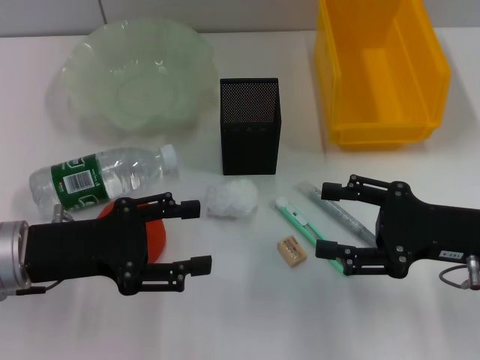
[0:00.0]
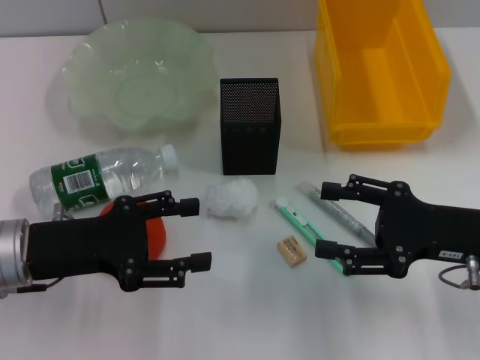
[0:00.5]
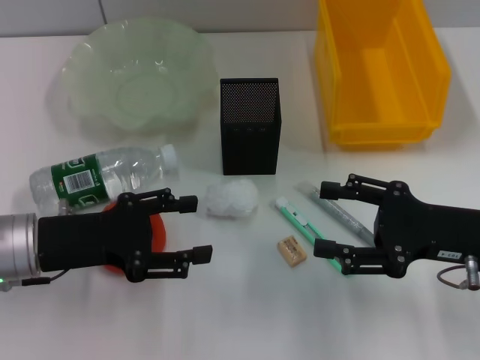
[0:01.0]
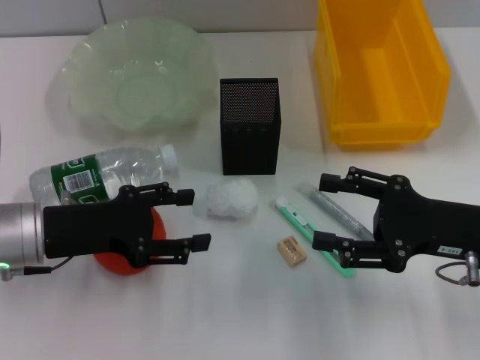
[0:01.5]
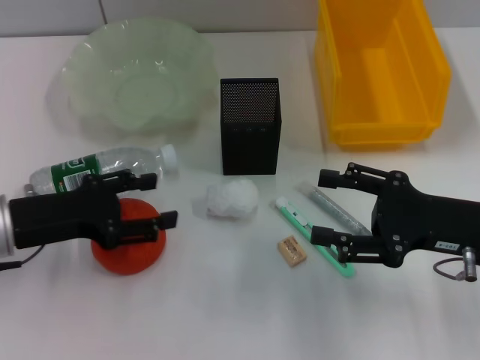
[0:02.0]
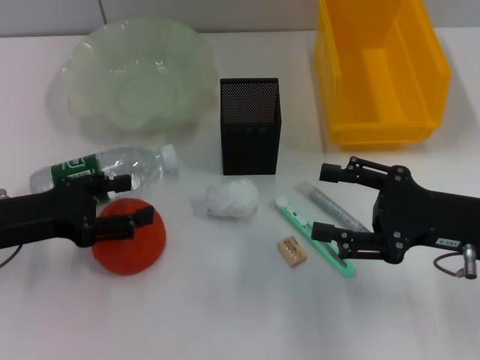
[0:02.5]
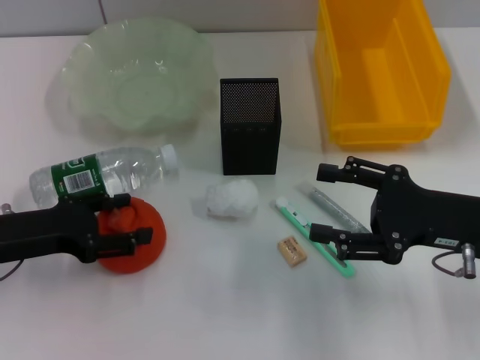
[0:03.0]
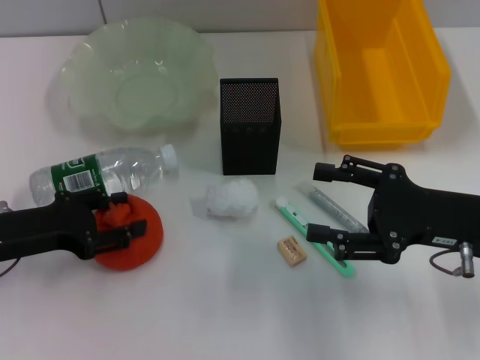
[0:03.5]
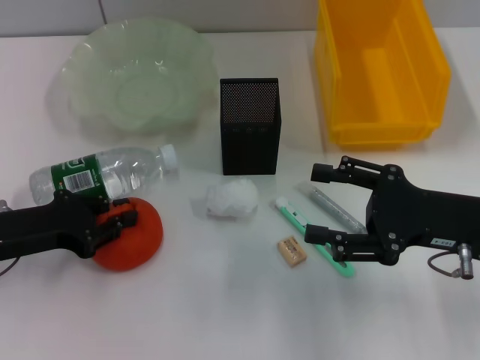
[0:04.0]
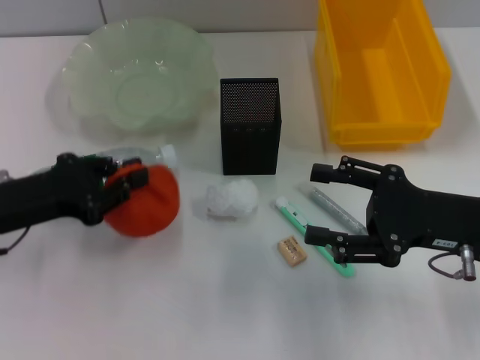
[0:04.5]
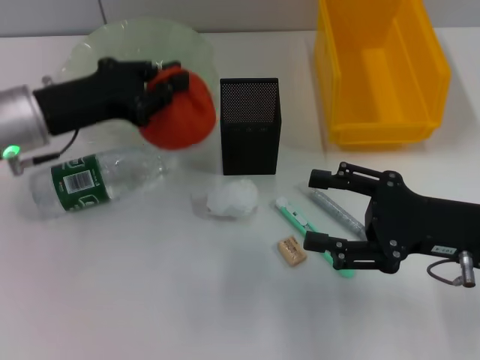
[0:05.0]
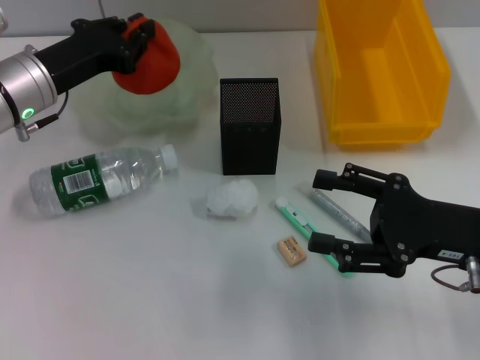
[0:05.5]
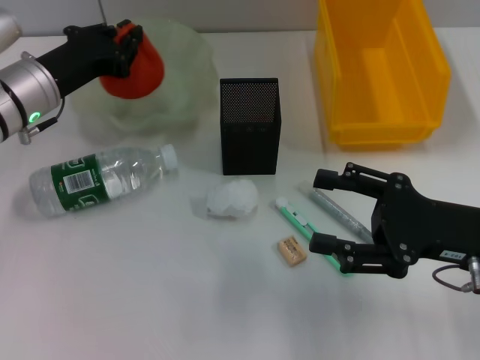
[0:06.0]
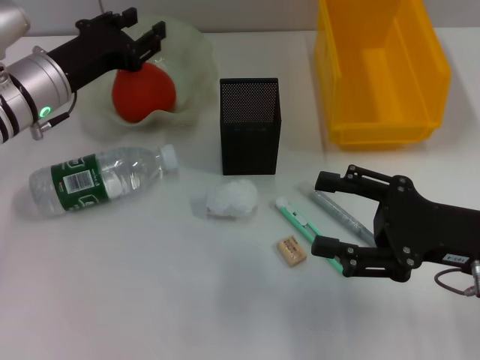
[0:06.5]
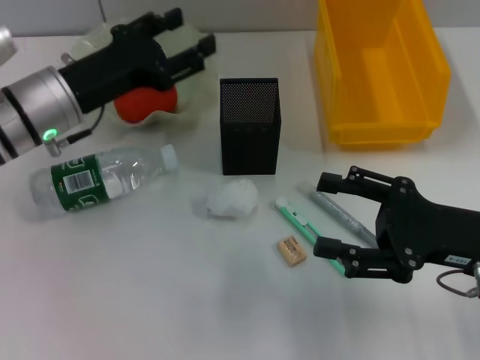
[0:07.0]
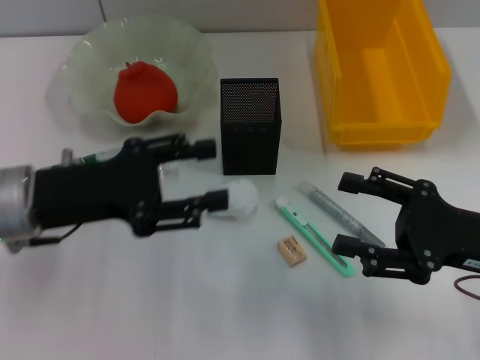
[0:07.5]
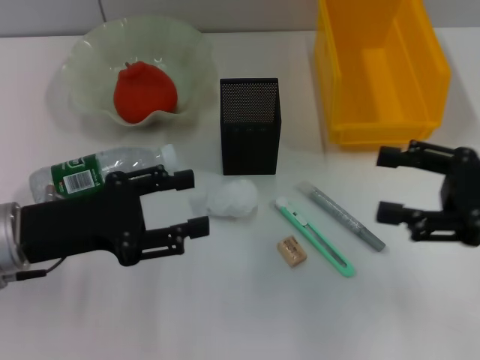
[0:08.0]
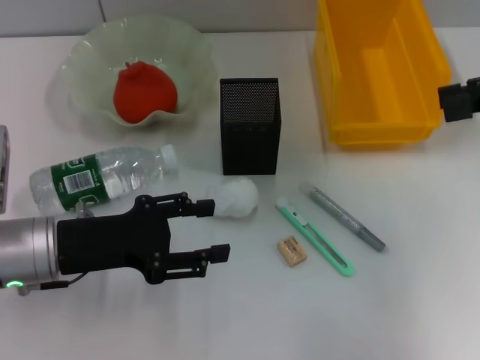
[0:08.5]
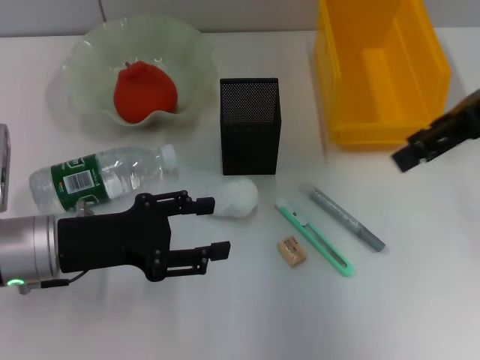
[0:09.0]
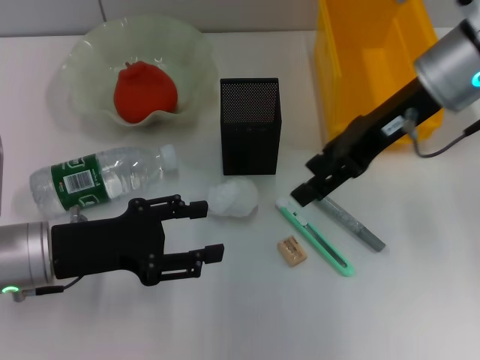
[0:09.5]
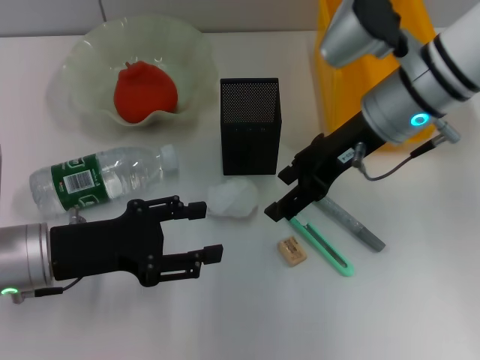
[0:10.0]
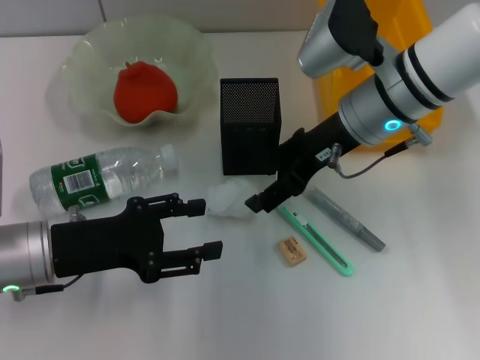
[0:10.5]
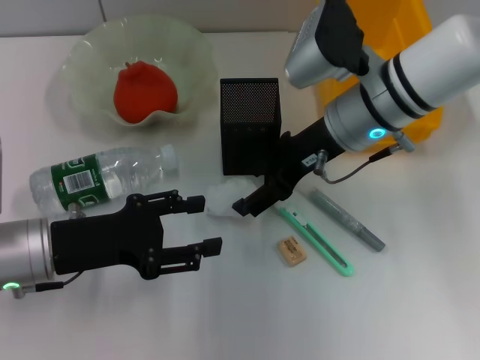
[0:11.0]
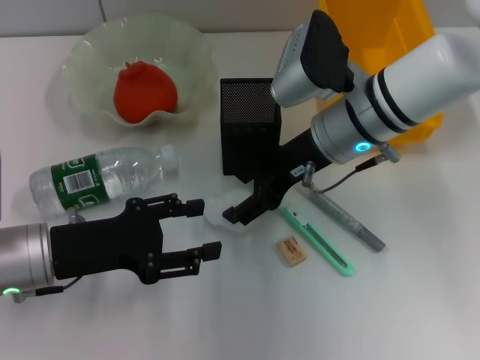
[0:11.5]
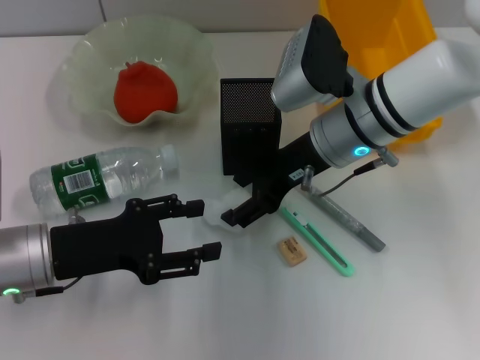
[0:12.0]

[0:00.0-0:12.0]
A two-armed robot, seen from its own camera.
Step, 0:00.0 to 0:04.0: Grab the orange with the left hand.
Step, 0:04.5 to 0:06.5: Place the orange into the fruit bowl with the left hand.
0:00.0 to 0:02.0: The grippers stay close to where they were, moving slightly.
0:02.0 to 0:04.0: The left gripper closes its fingers.
0:04.0 to 0:06.0: The left gripper shifts approximately 15 cm forward and to the right.
0:06.0 to 0:08.0: The right gripper moves to the right, roughly 5 cm; the left gripper heads backward, covering roughly 15 cm, and opens up.
0:08.0 to 0:10.0: The right gripper goes some 20 cm to the left and forward.
0:10.0 to 0:12.0: The right gripper ends up approximately 5 cm from where it was.

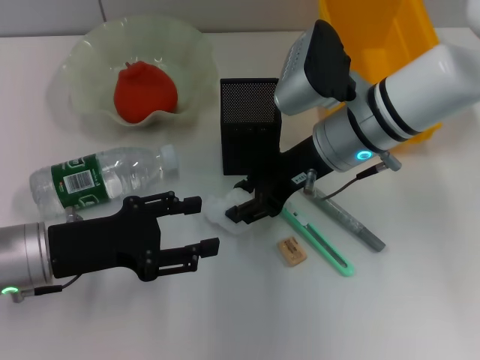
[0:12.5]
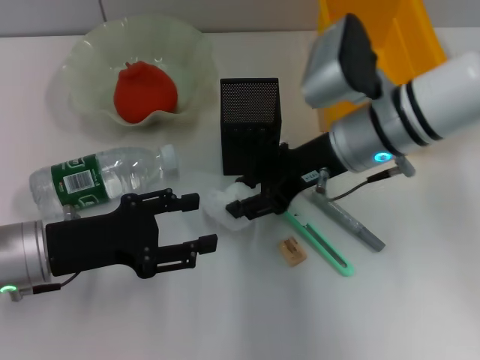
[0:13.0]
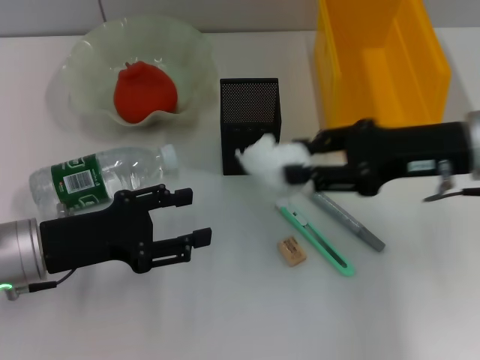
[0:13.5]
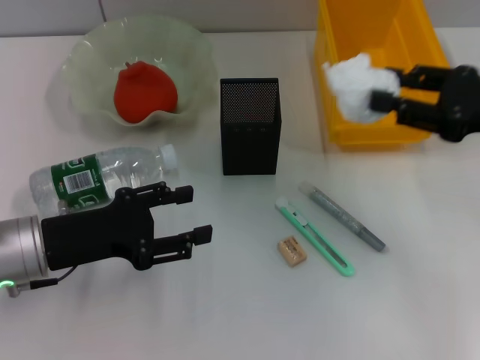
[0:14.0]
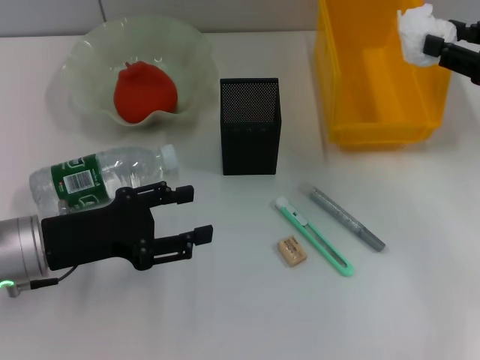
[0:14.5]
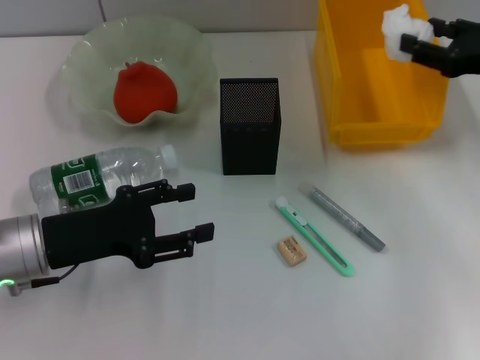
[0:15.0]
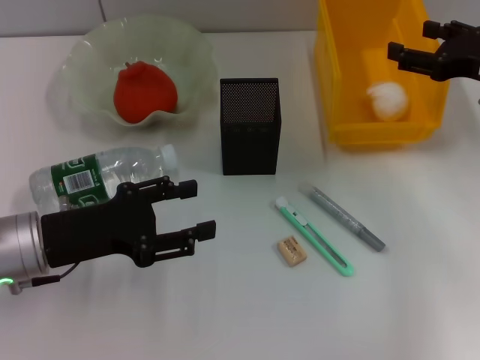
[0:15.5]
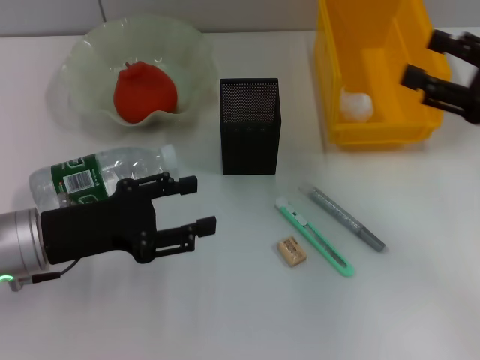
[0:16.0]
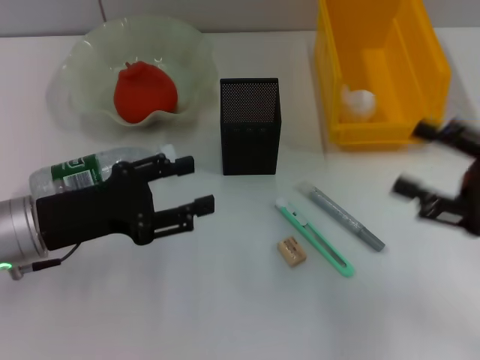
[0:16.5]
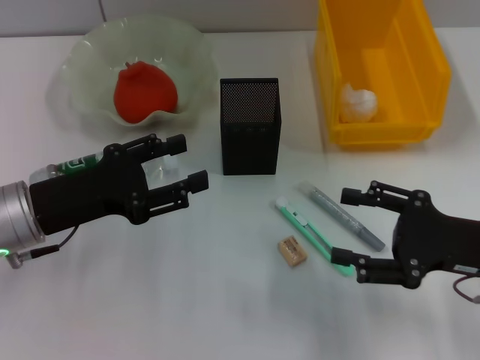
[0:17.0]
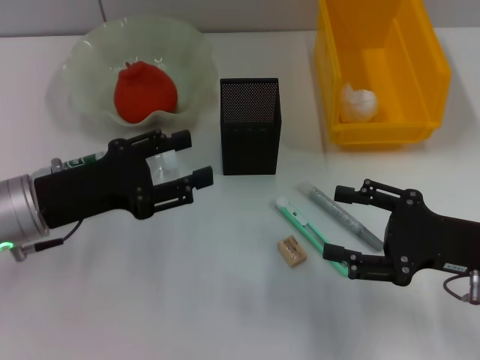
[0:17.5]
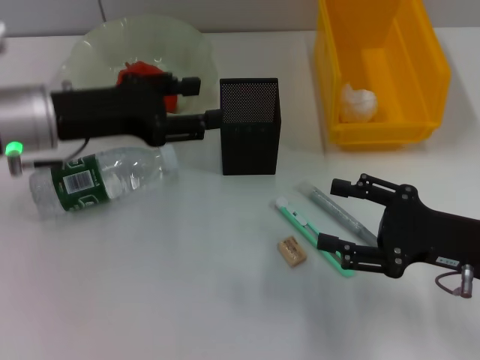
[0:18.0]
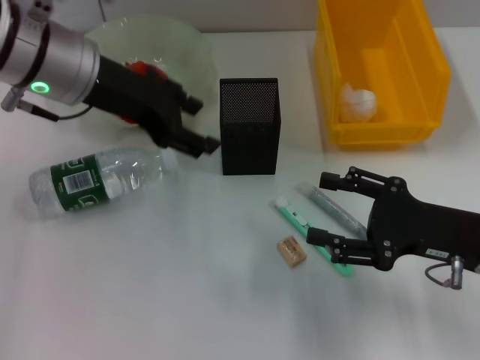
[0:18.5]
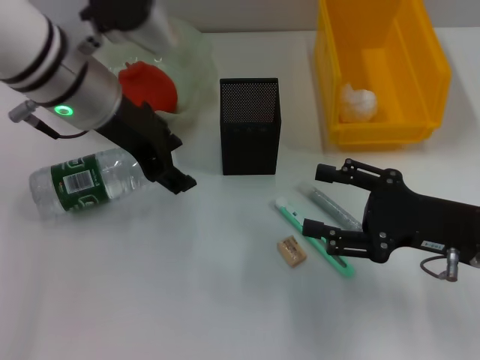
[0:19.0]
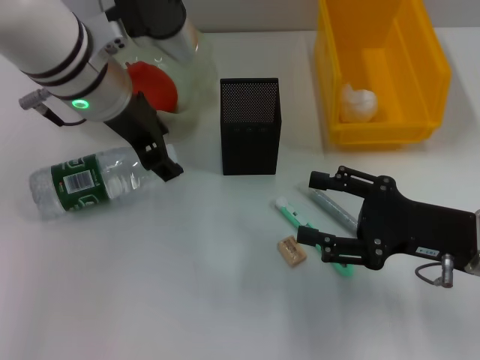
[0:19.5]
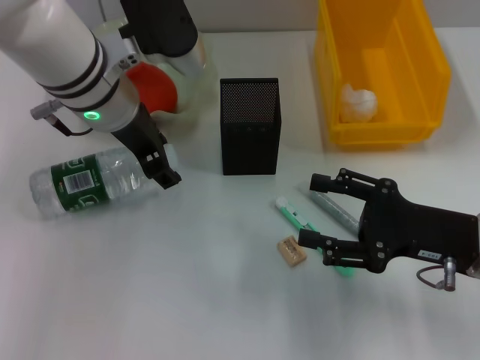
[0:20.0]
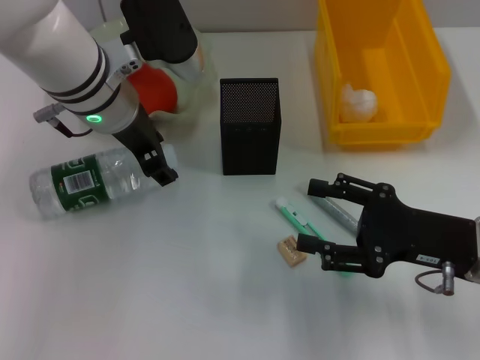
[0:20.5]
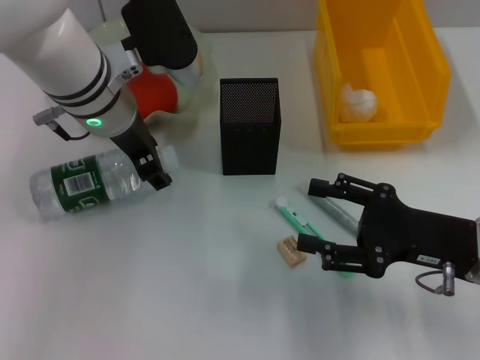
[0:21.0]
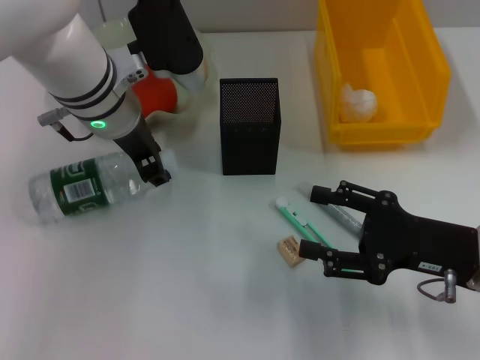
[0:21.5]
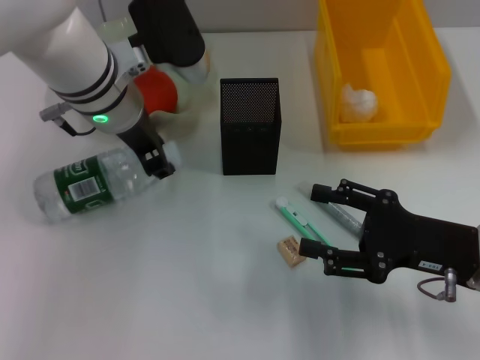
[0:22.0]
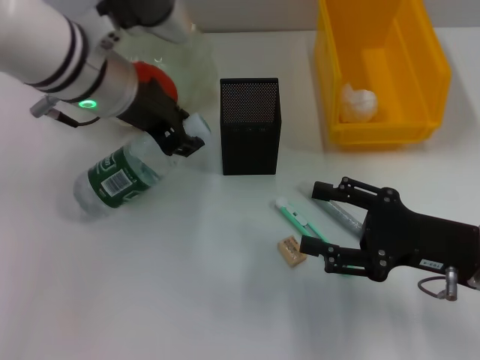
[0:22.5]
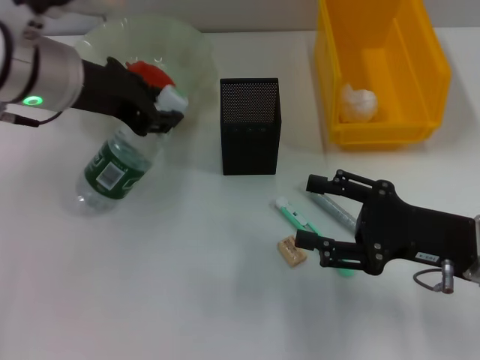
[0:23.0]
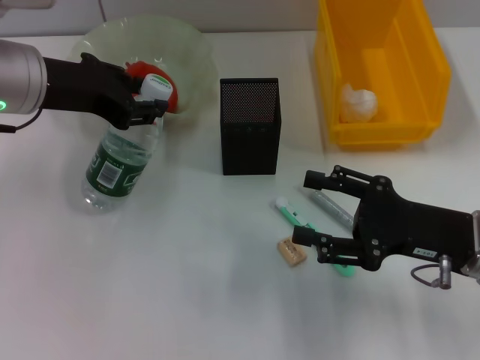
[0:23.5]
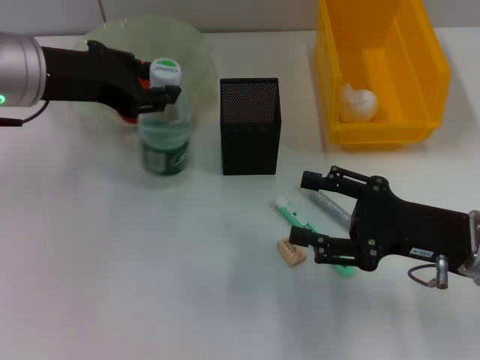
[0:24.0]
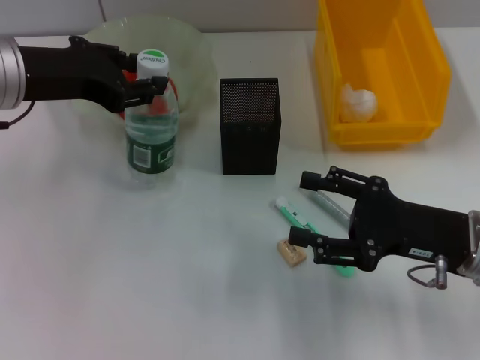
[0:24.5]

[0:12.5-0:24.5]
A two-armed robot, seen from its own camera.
Step, 0:13.0 to 0:15.0: Place the paper ball into the trash can with the right hand.
Step, 0:16.0 to 0:21.5: Grab the water bottle with the left hand.
0:12.5 to 0:14.5: The right gripper shifts approximately 20 cm to the right.
0:14.5 to 0:16.5: The right gripper heads backward and downward, covering some 10 cm, and opens.
0:16.5 to 0:18.5: The left gripper goes approximately 20 cm upward, forward and to the right. The right gripper moves to the left, roughly 5 cm.
0:18.5 to 0:20.5: The left gripper shifts roughly 5 cm to the right.
0:20.5 to 0:22.5: The left gripper closes its fingers.
0:22.5 to 0:24.5: The left gripper travels to the left by roughly 10 cm.

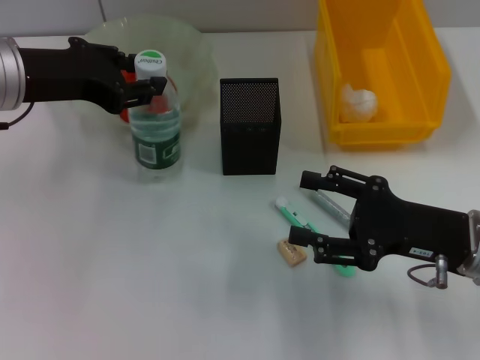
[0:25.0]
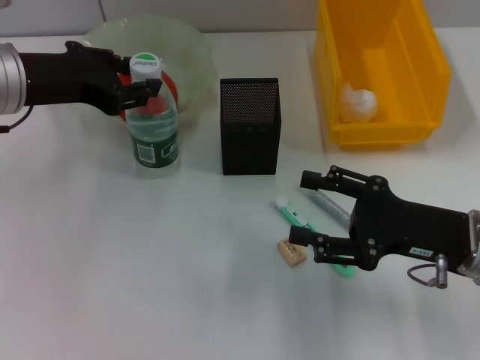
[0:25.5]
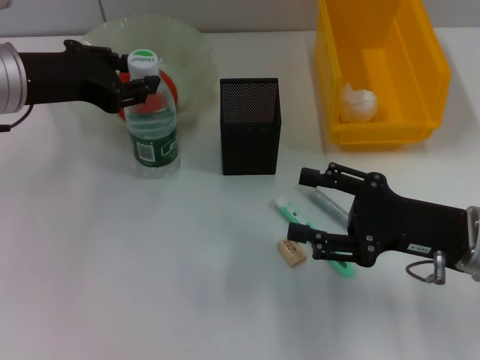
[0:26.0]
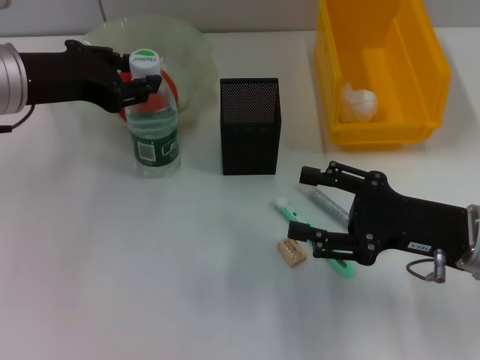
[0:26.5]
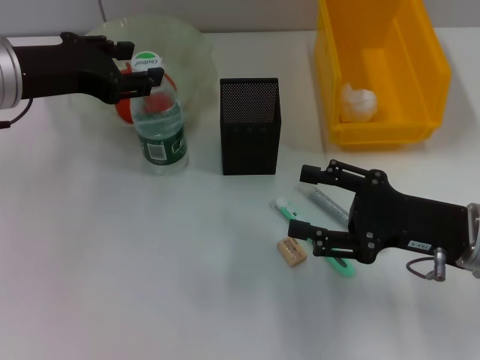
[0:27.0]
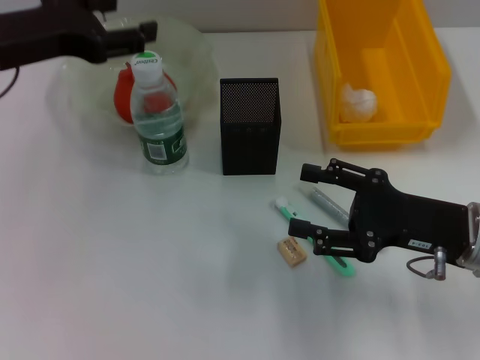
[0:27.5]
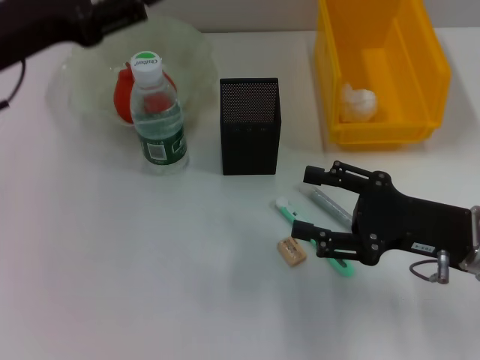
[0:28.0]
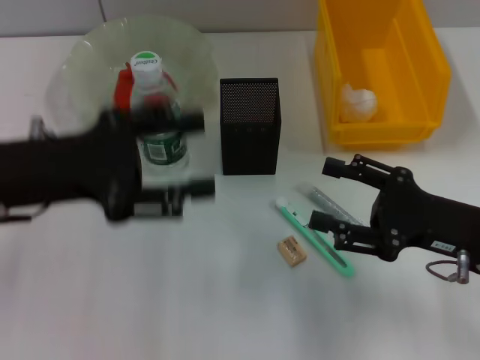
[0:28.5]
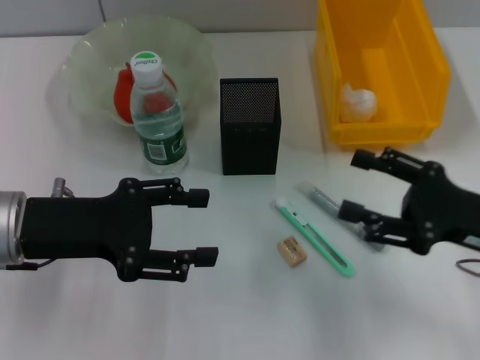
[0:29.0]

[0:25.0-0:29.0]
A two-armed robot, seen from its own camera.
Step, 0:25.0 to 0:27.0: Place the water bottle on the table with the left hand.
0:25.0 to 0:27.0: There are only small adjustments of the grippers.
0:27.0 to 0:29.0: The left gripper shifts about 10 cm backward and downward, and opens up.
